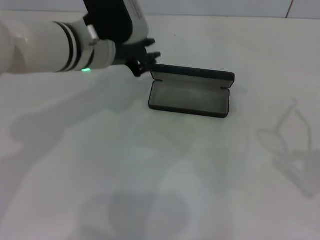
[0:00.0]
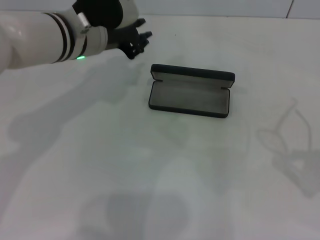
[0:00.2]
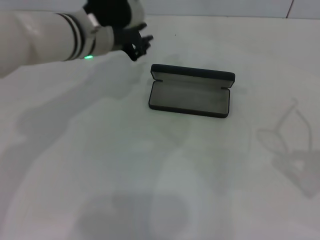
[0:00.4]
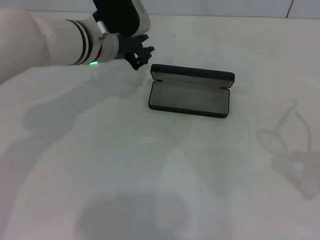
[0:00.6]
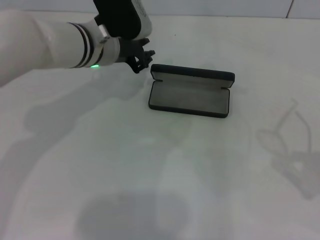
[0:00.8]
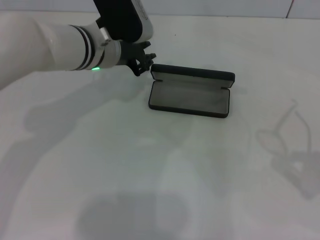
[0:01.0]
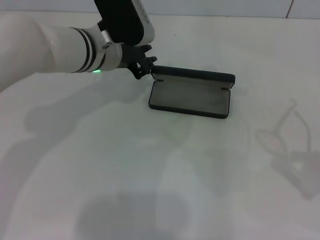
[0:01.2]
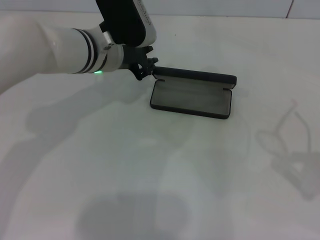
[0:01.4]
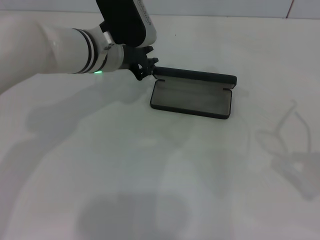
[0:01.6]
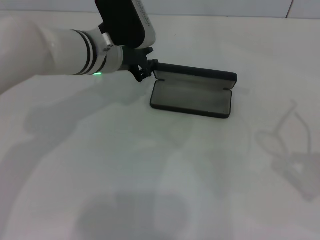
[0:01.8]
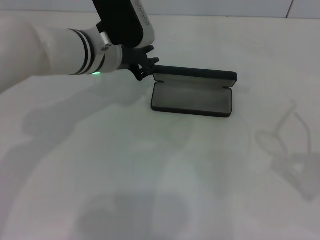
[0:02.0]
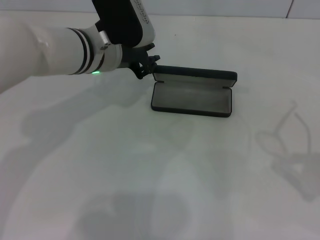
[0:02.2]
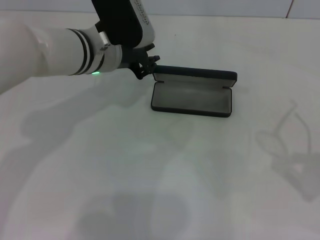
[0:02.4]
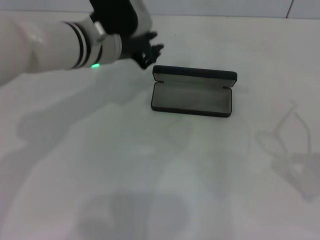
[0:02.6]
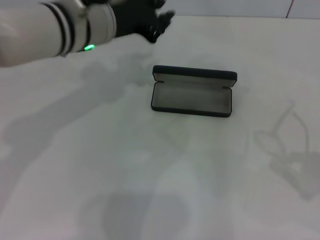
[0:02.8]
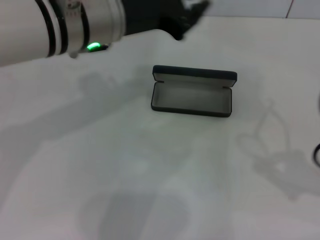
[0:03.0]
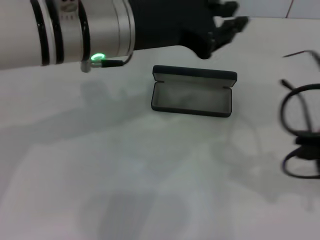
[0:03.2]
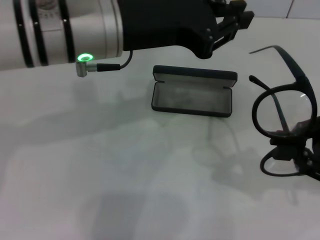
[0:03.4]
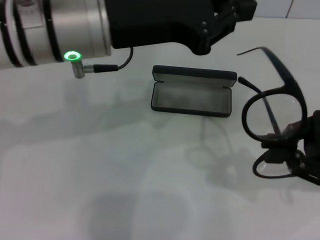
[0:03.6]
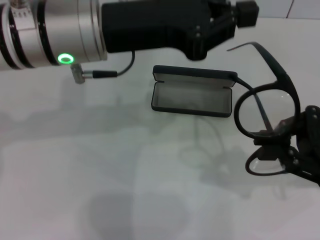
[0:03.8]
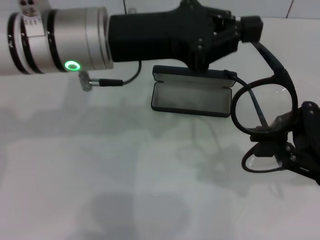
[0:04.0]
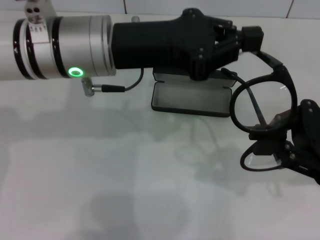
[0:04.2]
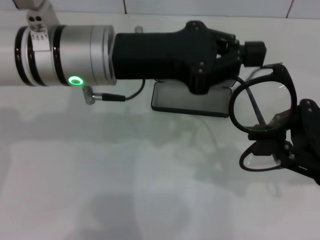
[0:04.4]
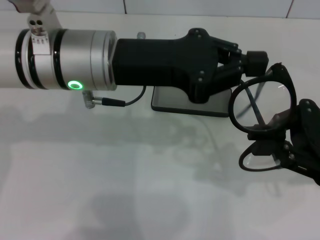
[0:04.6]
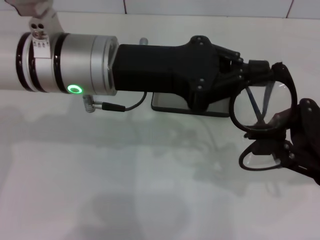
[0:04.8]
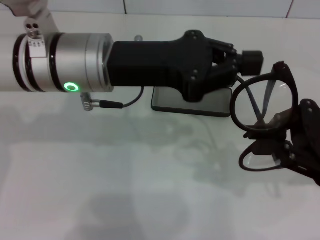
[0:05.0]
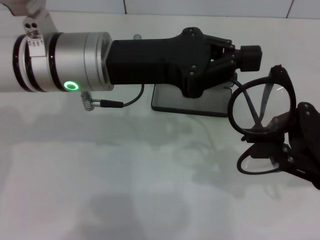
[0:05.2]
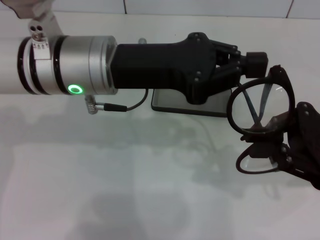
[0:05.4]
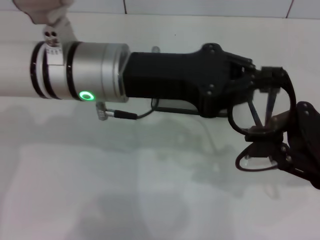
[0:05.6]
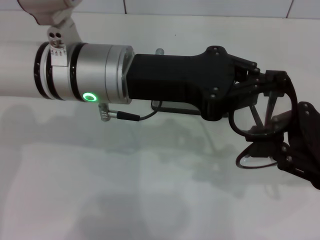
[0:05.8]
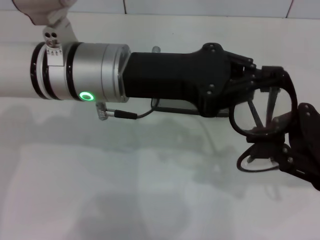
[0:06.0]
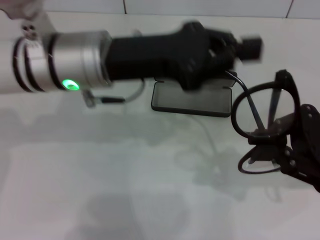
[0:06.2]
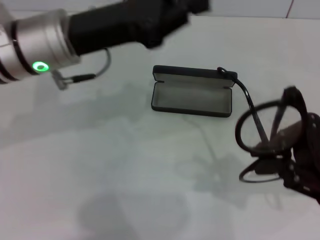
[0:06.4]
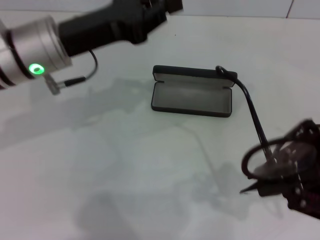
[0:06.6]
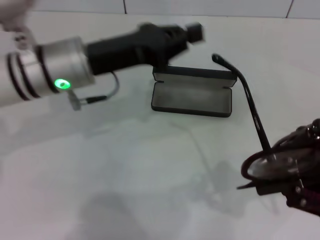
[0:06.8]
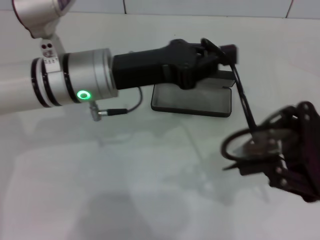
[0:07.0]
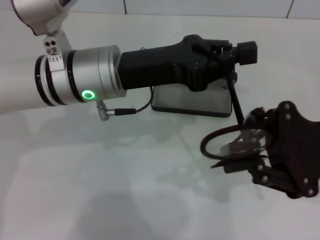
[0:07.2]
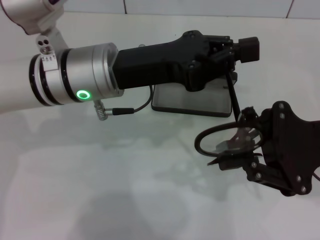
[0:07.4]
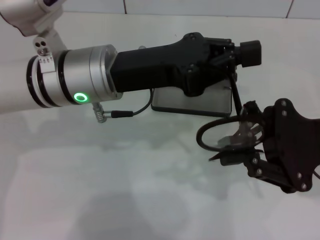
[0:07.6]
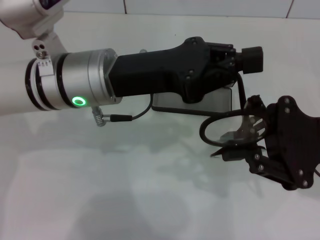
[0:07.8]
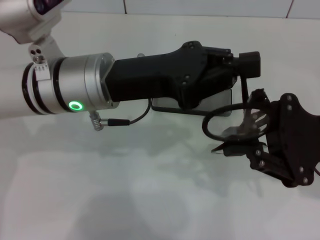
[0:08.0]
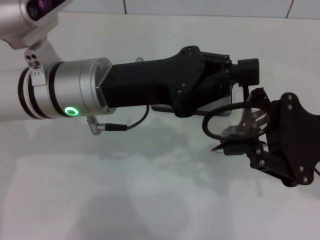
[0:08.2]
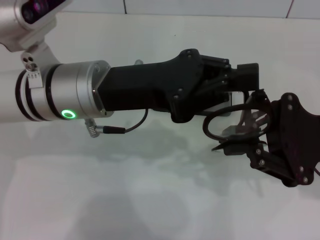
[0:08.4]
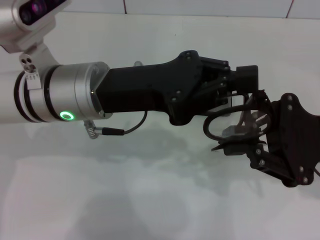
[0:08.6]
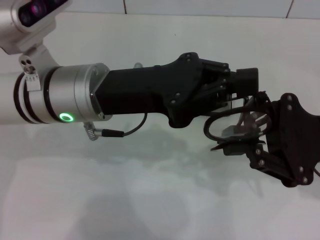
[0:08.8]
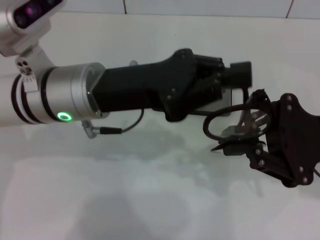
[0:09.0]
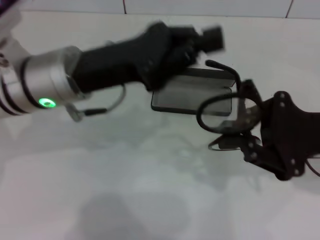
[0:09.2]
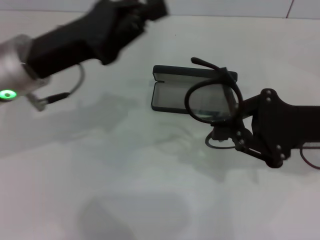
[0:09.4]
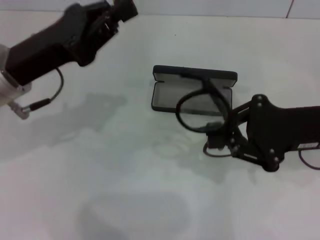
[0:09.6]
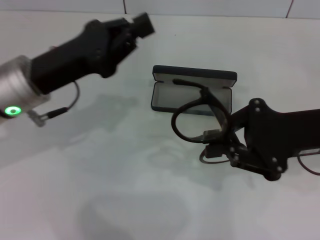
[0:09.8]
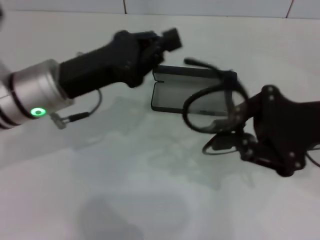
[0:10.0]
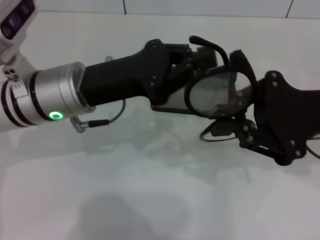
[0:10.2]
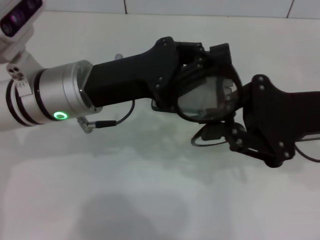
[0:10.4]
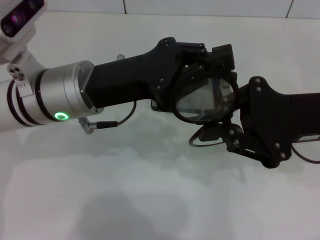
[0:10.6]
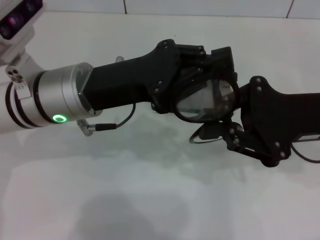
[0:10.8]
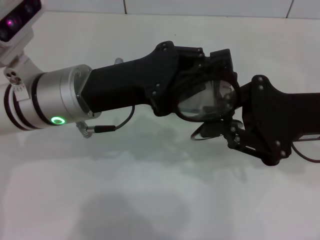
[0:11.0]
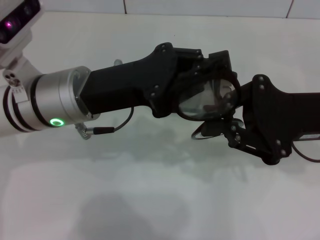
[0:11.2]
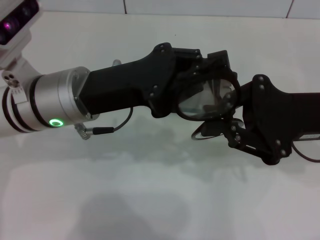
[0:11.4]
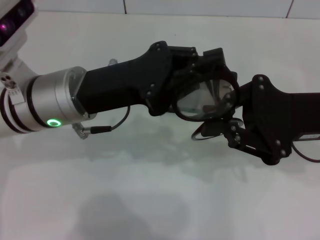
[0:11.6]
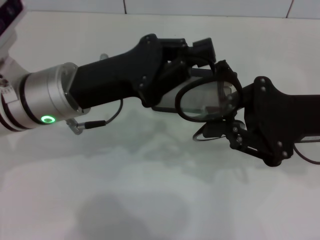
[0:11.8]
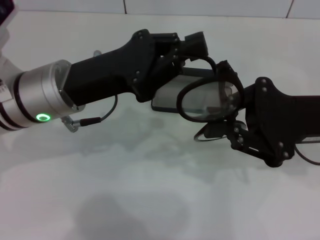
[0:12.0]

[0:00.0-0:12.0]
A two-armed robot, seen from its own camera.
Step, 0:00.0 to 0:11.2: Fold the frame with your left hand.
0:00.0 to 0:01.6: The grippers stay close to where they were, moving slightly.
0:01.6 to 0:03.0: The left gripper moves upward and backward, about 10 cm.
0:03.0 to 0:04.4: The right gripper is displaced to the left and forward by approximately 10 cm.
0:09.0 to 0:10.4: The left gripper goes to the left and returns, approximately 10 cm each way.
0:10.4 to 0:12.0: The grippers move only a little.

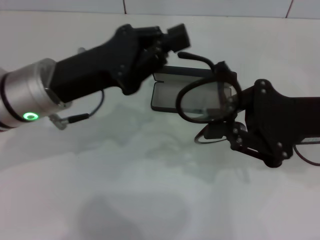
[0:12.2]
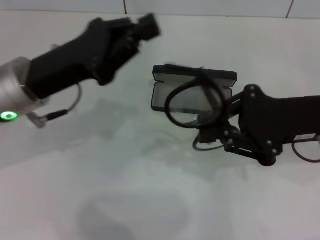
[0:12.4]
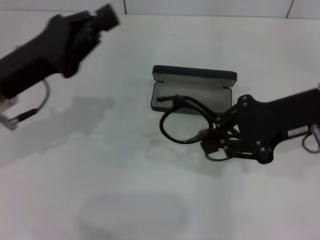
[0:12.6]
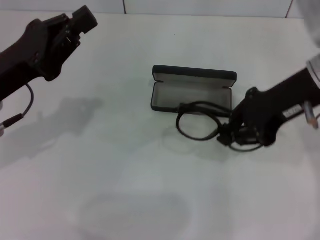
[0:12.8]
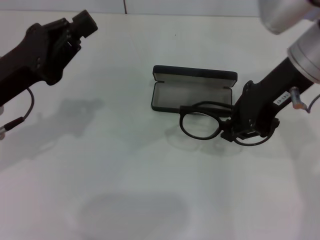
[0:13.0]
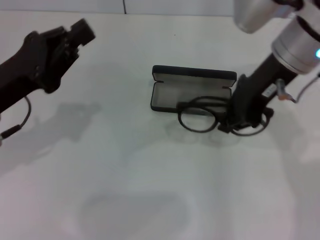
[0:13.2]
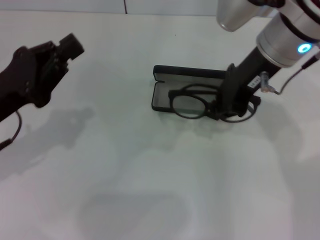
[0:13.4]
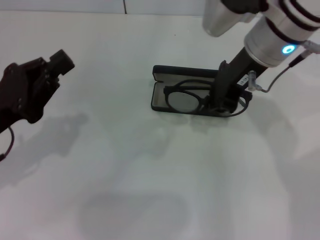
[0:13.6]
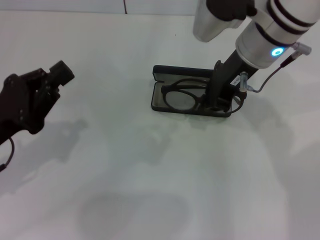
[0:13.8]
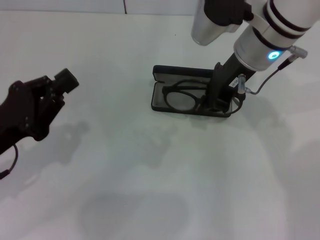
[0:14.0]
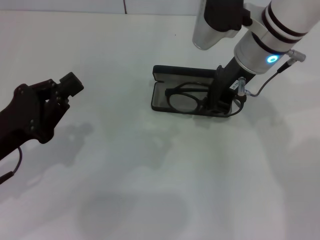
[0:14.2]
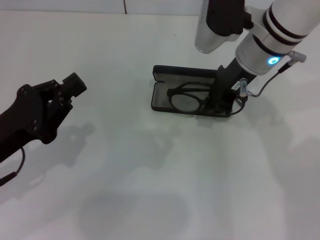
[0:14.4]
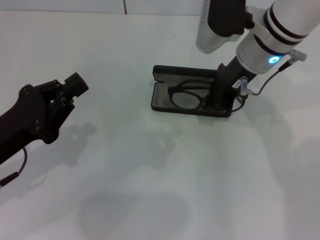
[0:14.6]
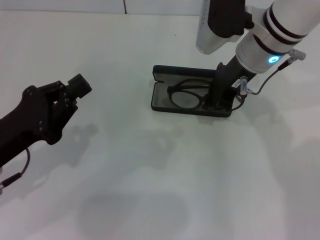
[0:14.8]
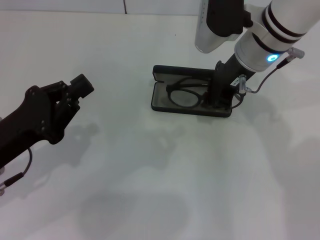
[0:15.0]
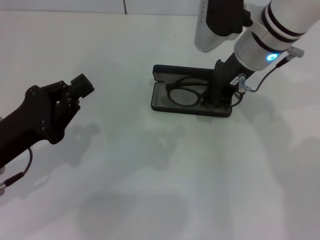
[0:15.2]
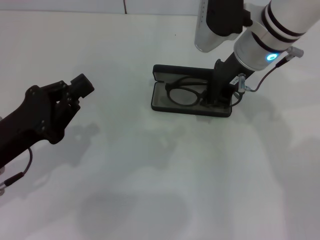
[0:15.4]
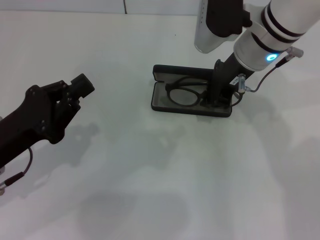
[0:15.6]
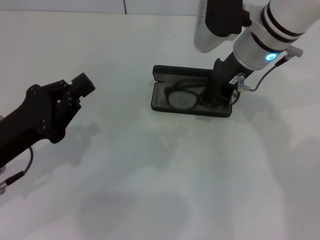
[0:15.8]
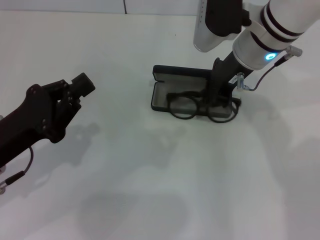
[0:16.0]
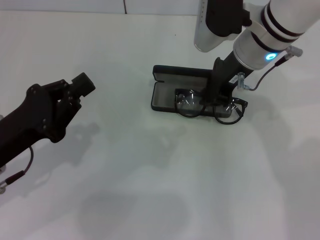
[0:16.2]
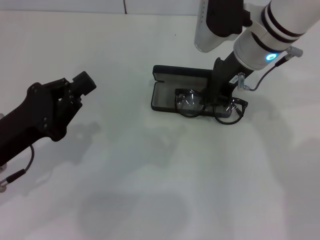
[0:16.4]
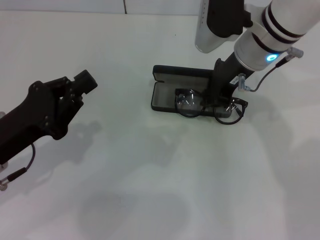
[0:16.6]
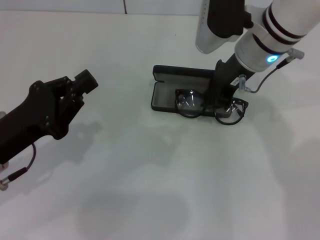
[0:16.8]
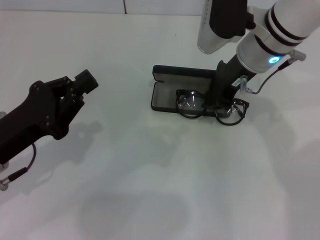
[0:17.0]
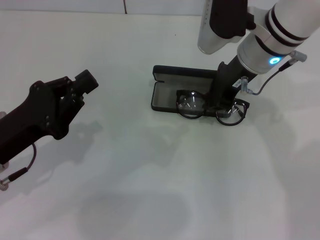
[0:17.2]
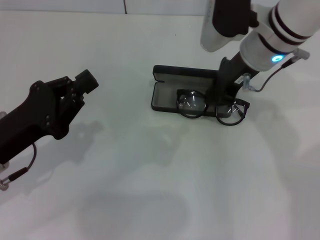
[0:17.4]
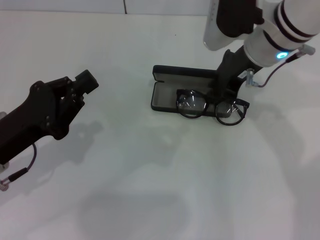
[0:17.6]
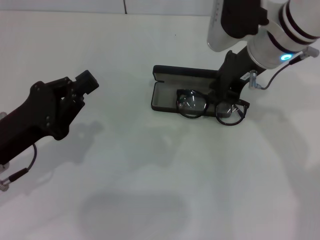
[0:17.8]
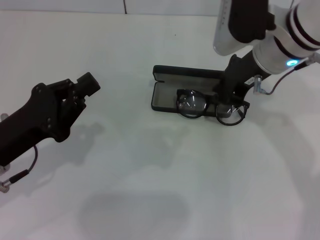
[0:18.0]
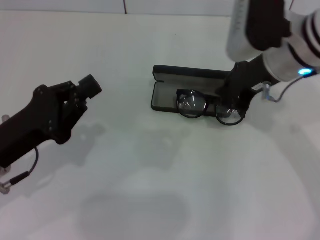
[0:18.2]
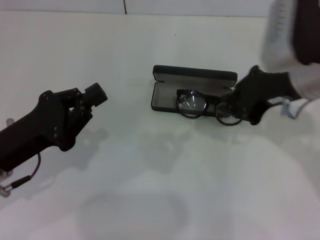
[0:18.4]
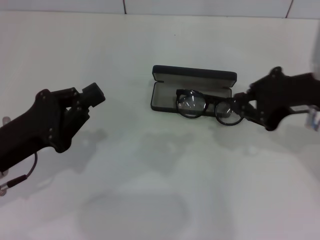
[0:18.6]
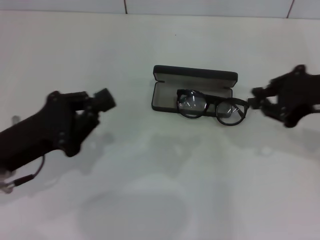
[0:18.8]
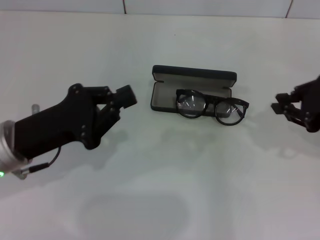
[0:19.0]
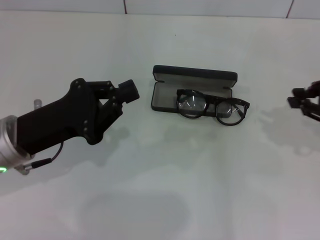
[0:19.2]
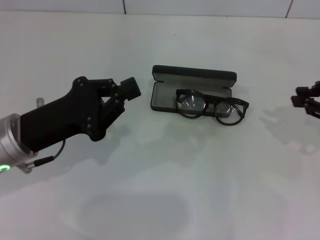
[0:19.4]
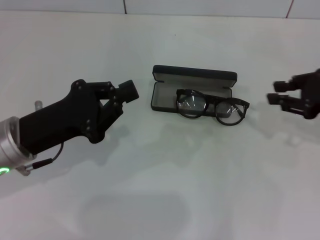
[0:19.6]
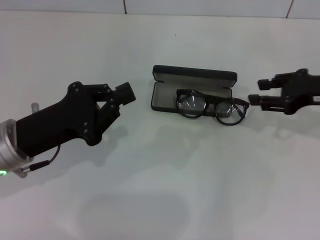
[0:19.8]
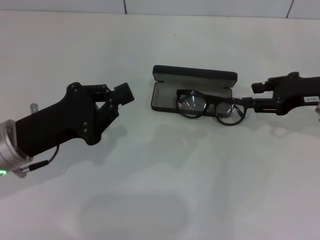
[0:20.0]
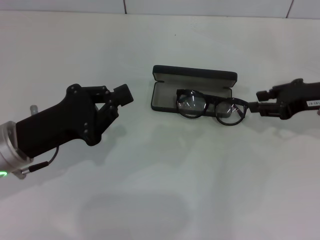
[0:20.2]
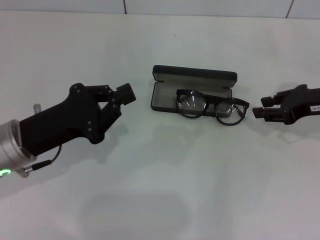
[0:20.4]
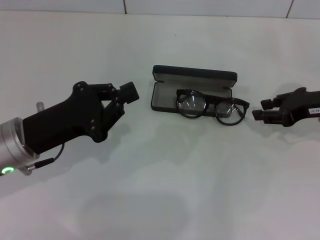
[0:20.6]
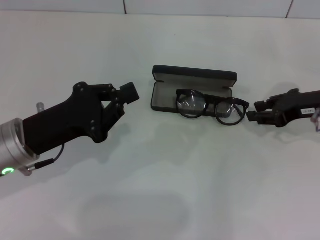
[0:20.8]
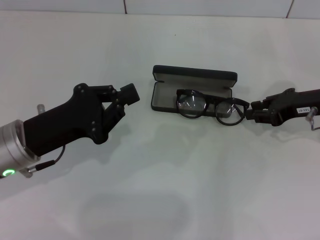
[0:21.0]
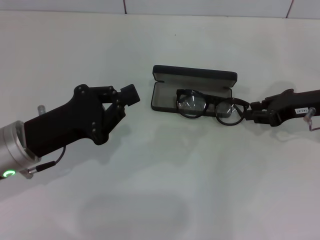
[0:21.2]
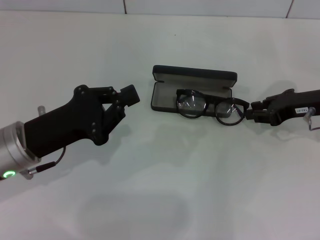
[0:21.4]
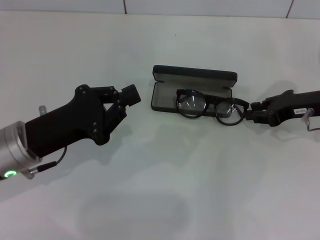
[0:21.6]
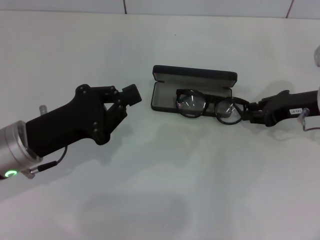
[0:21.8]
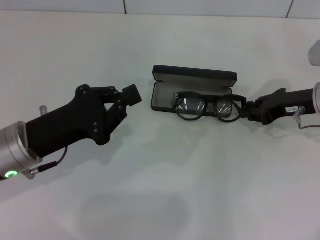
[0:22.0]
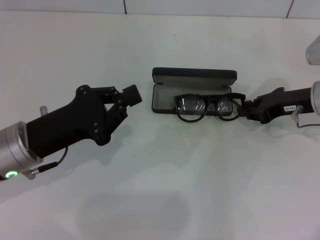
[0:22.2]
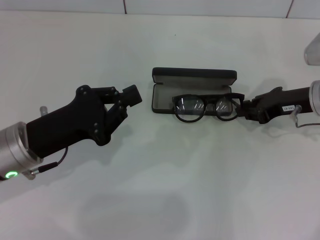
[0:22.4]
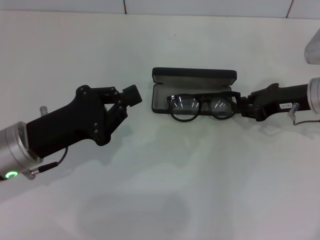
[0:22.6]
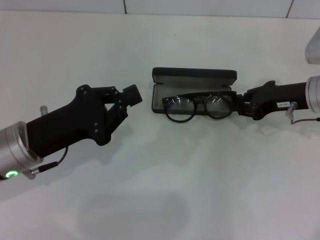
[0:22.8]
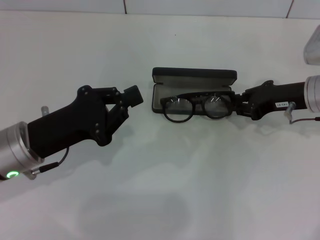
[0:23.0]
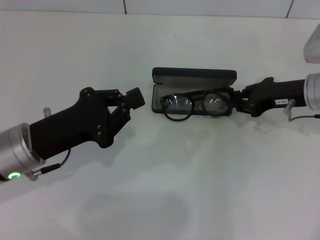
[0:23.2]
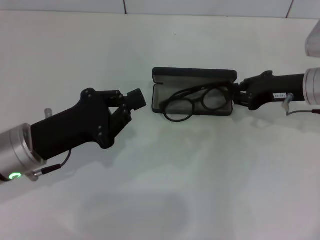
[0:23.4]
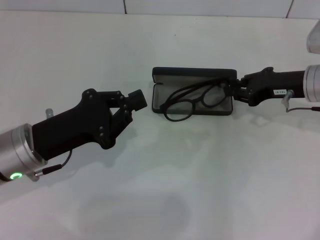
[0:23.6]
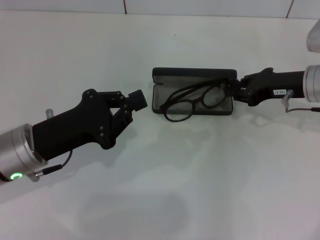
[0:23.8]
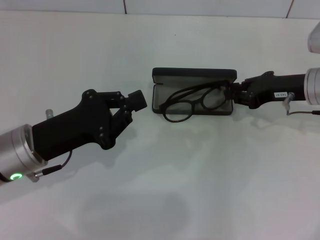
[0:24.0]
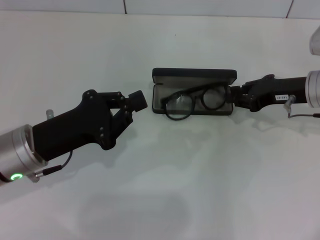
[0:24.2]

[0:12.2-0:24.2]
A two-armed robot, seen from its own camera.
0:12.2 to 0:13.8: The right gripper travels to the left, forward and upward by roughly 15 cm; the left gripper travels to the left and backward by about 15 cm.
0:13.8 to 0:15.2: The grippers stay close to where they were, moving slightly.
0:15.2 to 0:16.6: Neither gripper changes place.
0:16.6 to 0:18.2: The right gripper ends up approximately 5 cm from where it was.
0:18.2 to 0:19.8: The right gripper moves to the right and downward, approximately 15 cm.
0:19.8 to 0:21.2: The grippers stay close to where they were, moving slightly.
0:21.2 to 0:24.2: The grippers make only small movements.
